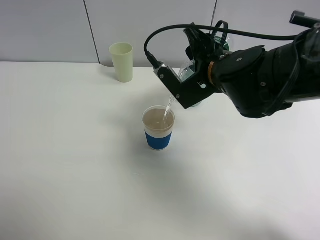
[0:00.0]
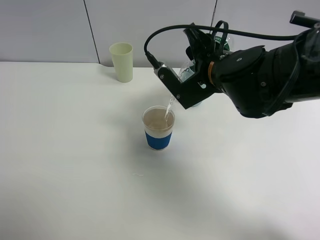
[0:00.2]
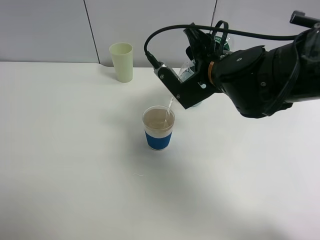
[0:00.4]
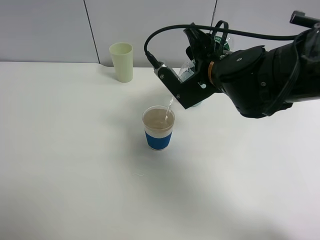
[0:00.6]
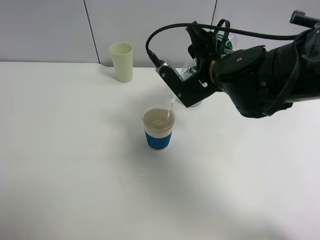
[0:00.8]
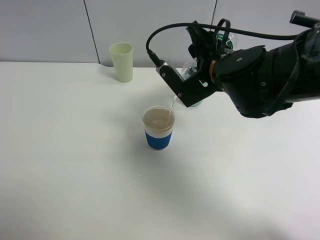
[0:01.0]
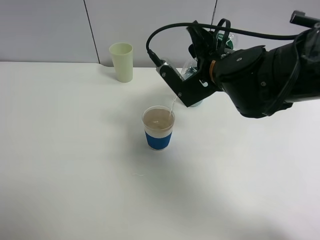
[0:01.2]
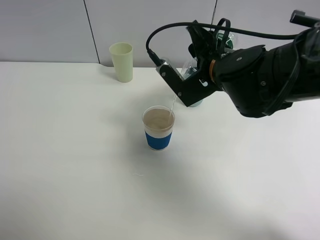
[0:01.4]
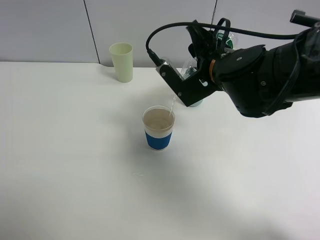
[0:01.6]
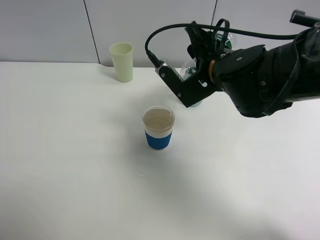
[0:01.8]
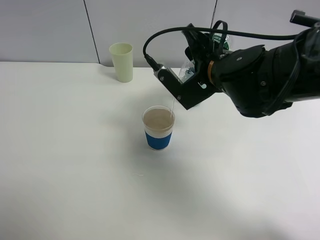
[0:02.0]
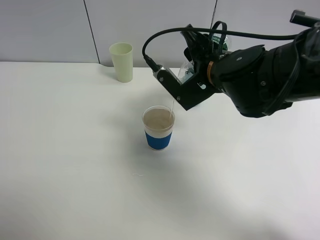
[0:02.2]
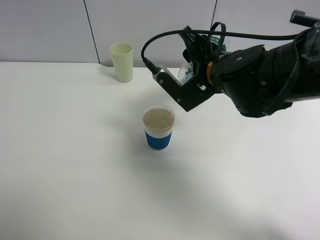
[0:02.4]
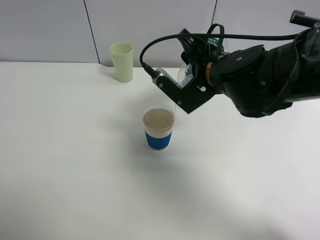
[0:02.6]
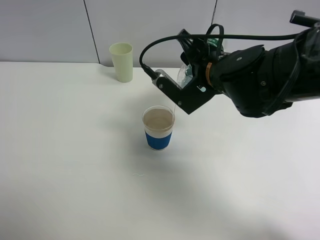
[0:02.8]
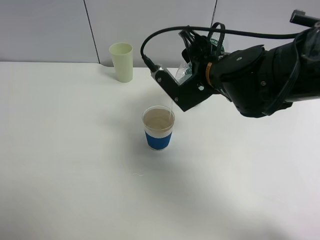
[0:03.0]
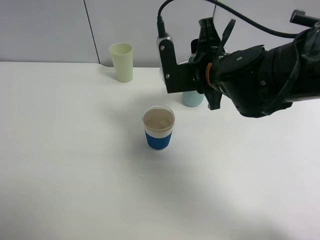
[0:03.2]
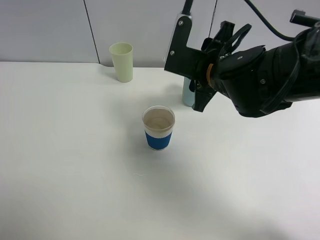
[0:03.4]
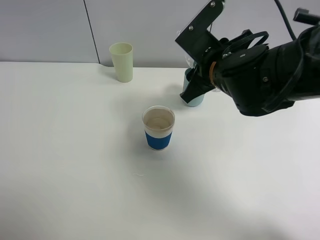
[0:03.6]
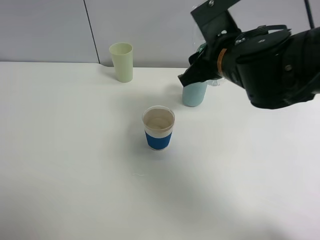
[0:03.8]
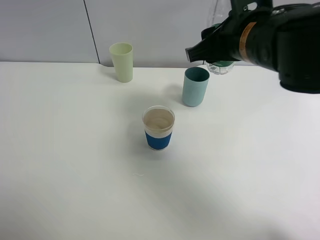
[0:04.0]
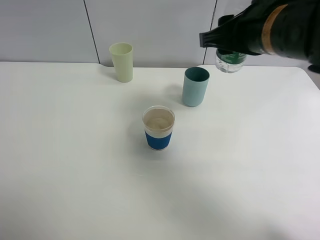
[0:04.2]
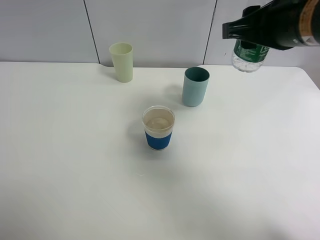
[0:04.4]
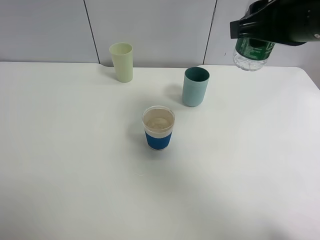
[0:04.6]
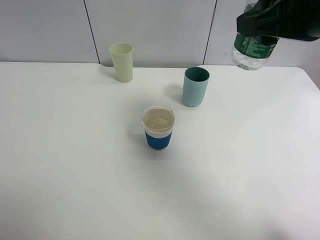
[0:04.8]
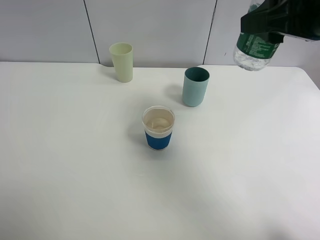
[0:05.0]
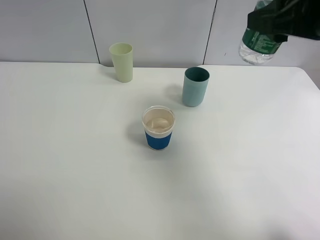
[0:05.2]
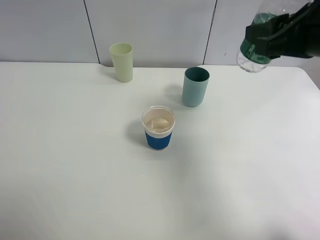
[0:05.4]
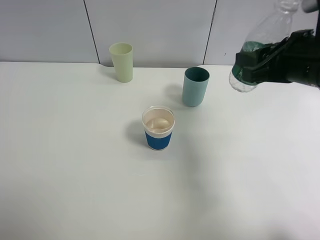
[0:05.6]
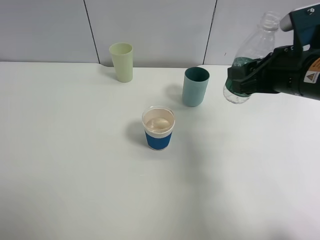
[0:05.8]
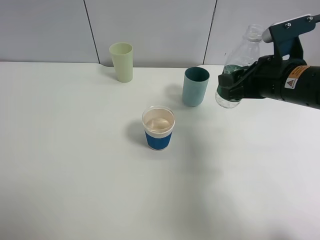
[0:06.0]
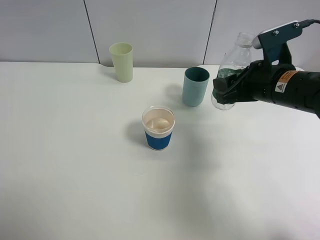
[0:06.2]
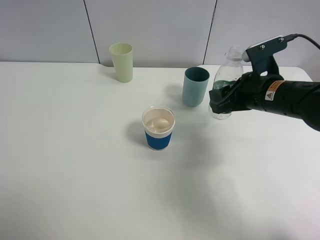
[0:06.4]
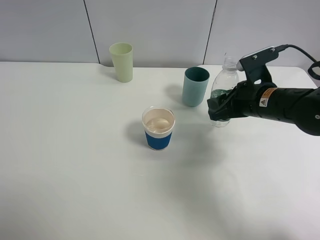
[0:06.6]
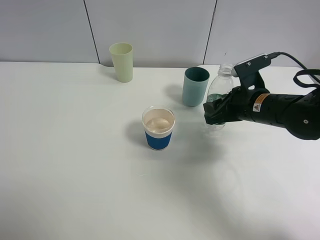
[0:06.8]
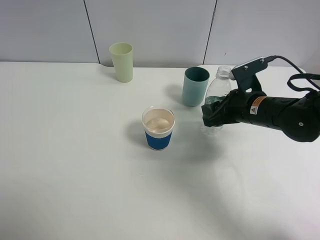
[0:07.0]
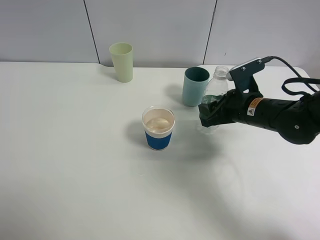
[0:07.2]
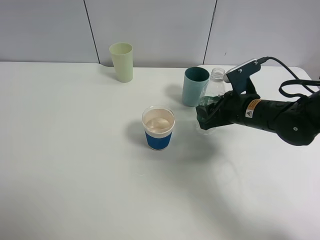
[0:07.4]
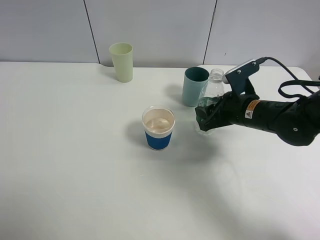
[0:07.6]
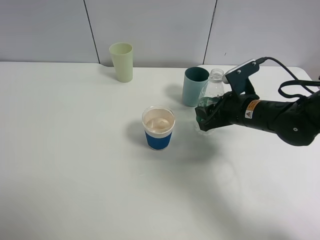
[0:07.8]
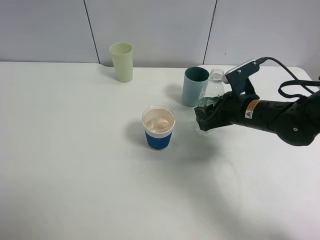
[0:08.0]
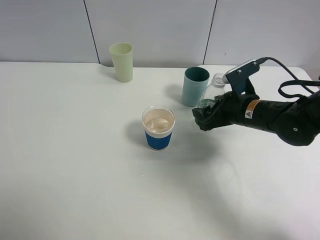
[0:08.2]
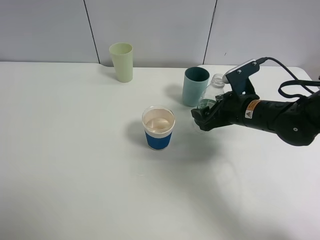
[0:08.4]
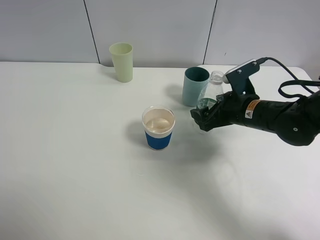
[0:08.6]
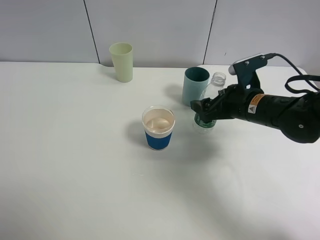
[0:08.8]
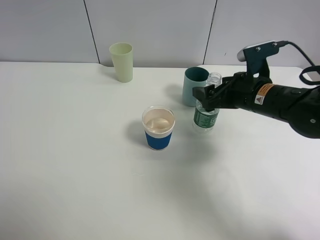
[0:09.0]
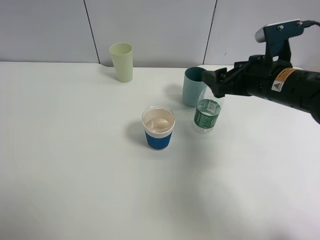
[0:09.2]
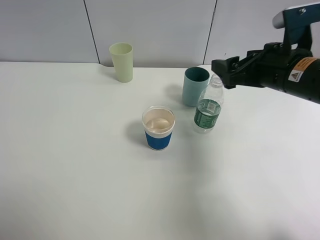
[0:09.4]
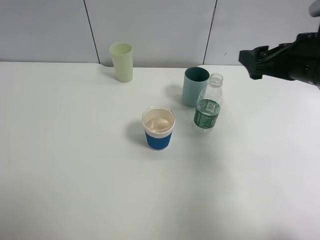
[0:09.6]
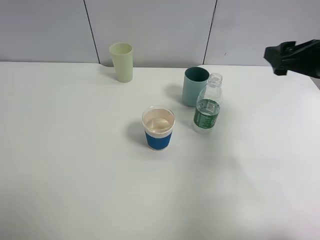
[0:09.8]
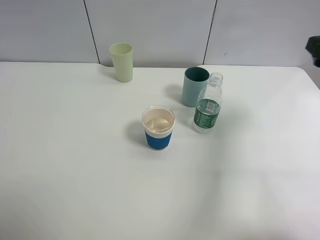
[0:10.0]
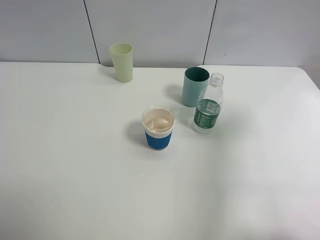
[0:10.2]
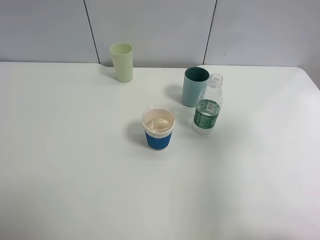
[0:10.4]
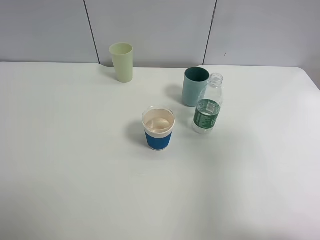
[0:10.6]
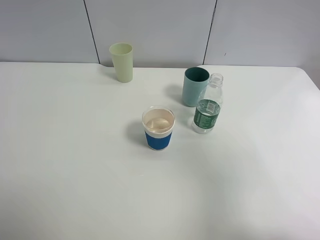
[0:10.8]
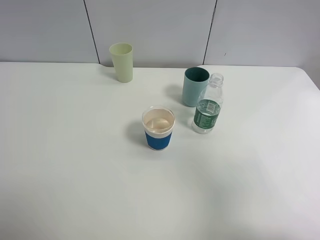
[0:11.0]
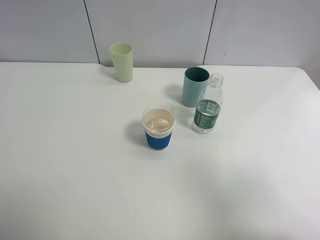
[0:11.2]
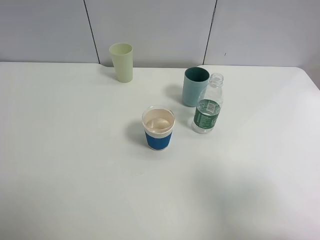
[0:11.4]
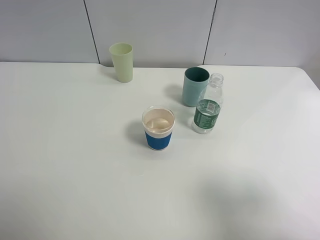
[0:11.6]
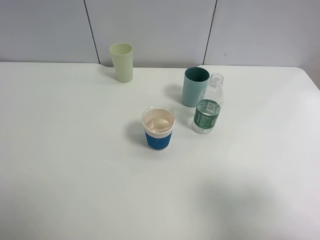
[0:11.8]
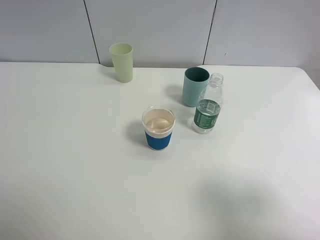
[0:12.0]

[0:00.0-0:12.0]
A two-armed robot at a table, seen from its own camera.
Task of the whole recording: use a clamp to hold the bottle of the drink, pour the beverage into a random cup, then clamp the cup containing the drink and pour the drink into another random cup.
Step, 0:00.0 to 0:03.0: Pour water into the paper cup with right gripper.
Step, 0:03.2 to 0:08.6: Place the water bottle on the table with right gripper.
0:00.0 to 0:01.6: Neither gripper changes place.
0:01.6 to 0:03.0: The grippers move only a little.
0:03.0 to 0:04.4: The right gripper shifts approximately 15 cm upward, to the right and backward.
0:04.4 to 0:06.0: The right gripper shifts some 10 cm downward.
0:06.0 to 0:07.6: The right gripper shifts about 10 cm downward.
0:07.6 to 0:09.0: The right gripper opens its fingers.
0:09.0 to 0:10.4: The right gripper is displaced upward, backward and to the right by roughly 25 cm.
0:10.4 to 0:12.0: The right gripper travels backward and downward by some 15 cm.

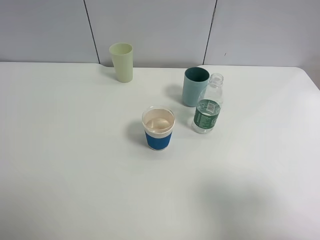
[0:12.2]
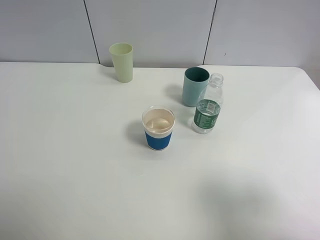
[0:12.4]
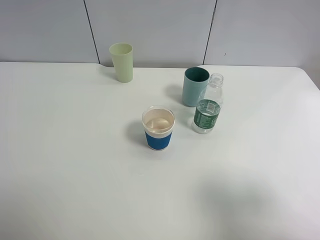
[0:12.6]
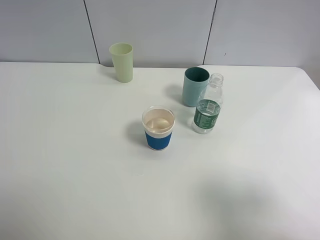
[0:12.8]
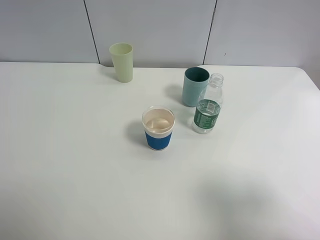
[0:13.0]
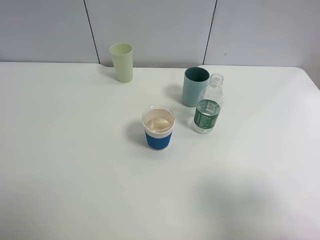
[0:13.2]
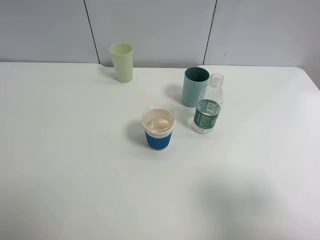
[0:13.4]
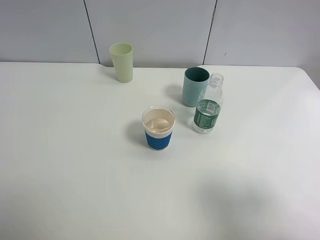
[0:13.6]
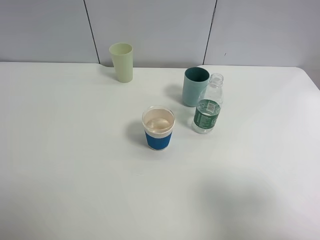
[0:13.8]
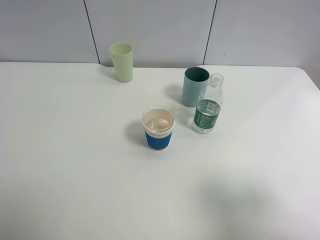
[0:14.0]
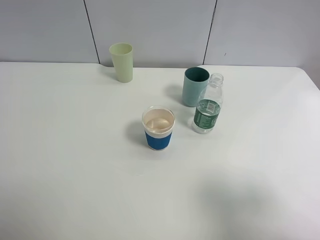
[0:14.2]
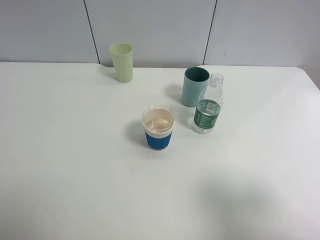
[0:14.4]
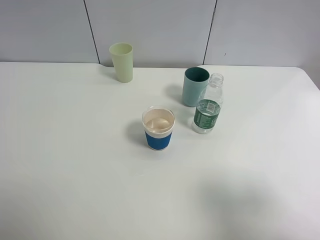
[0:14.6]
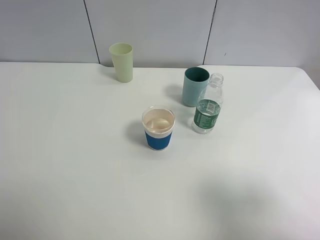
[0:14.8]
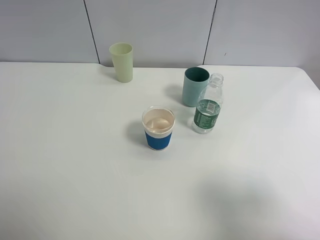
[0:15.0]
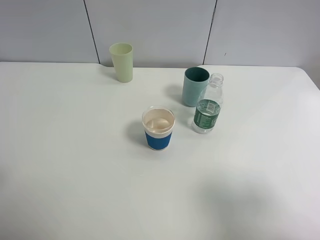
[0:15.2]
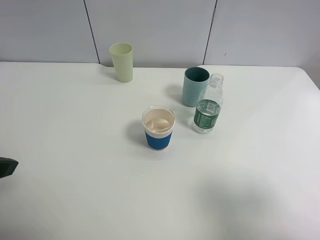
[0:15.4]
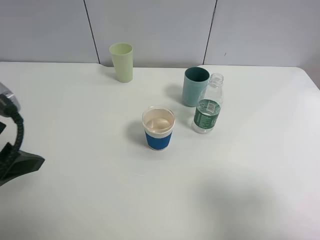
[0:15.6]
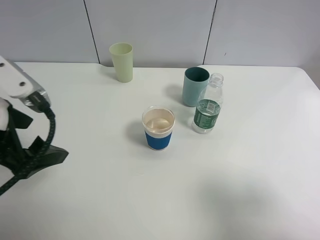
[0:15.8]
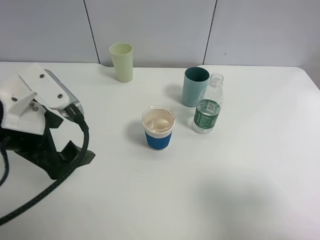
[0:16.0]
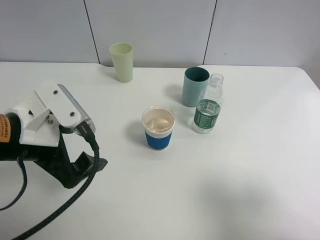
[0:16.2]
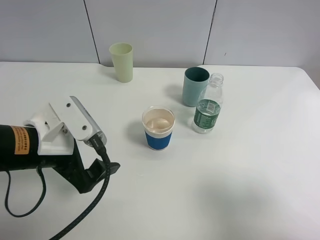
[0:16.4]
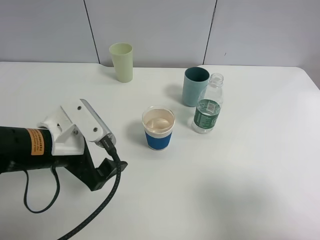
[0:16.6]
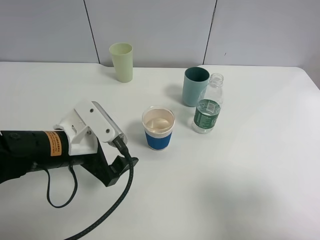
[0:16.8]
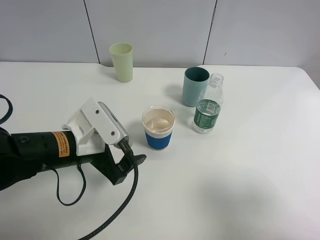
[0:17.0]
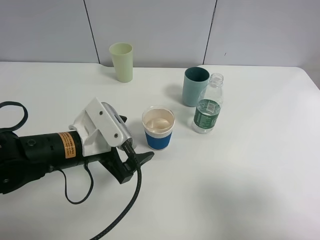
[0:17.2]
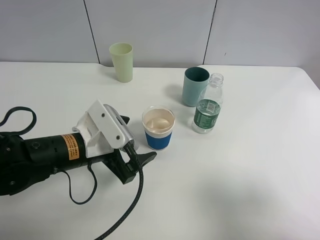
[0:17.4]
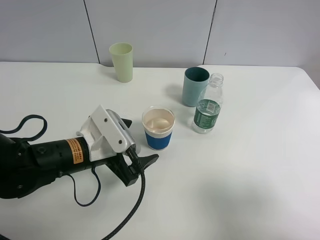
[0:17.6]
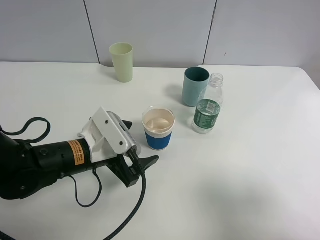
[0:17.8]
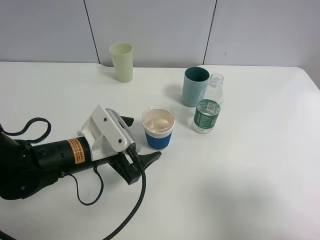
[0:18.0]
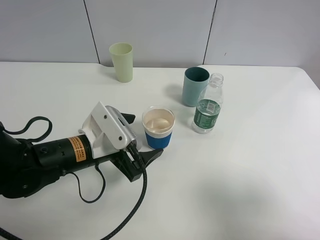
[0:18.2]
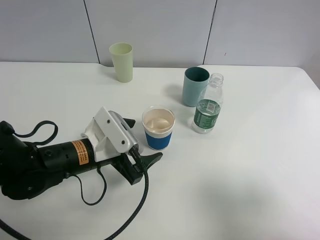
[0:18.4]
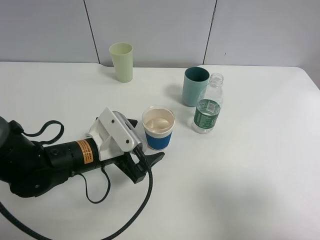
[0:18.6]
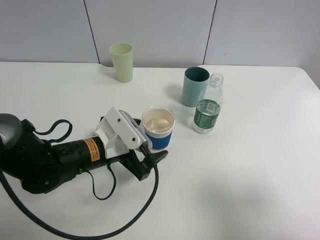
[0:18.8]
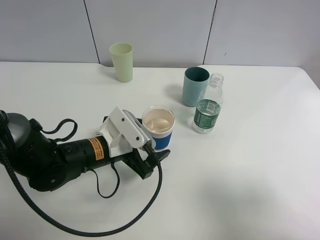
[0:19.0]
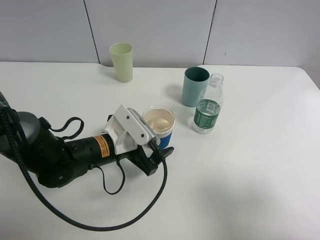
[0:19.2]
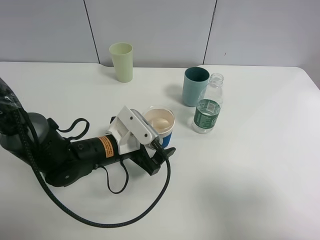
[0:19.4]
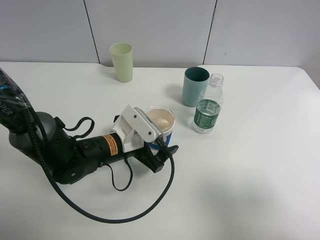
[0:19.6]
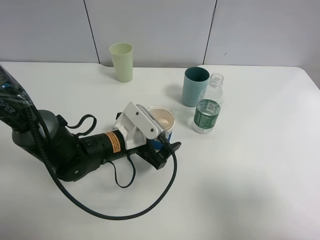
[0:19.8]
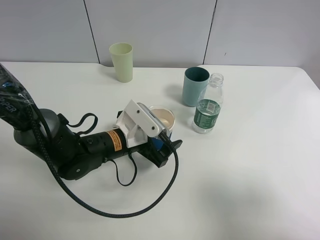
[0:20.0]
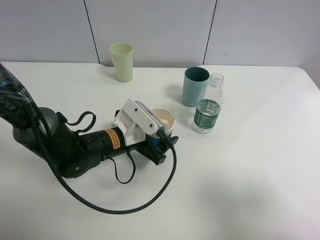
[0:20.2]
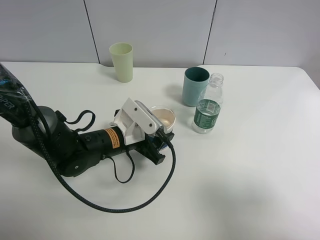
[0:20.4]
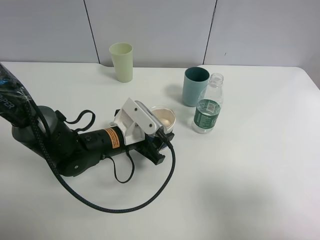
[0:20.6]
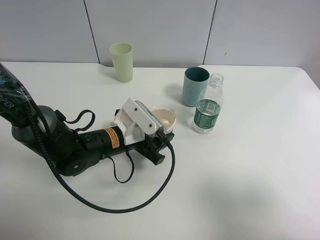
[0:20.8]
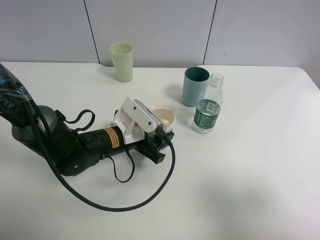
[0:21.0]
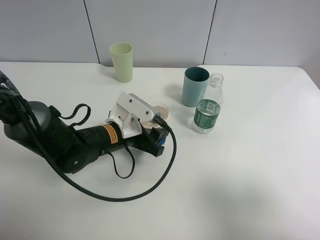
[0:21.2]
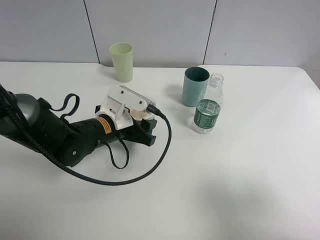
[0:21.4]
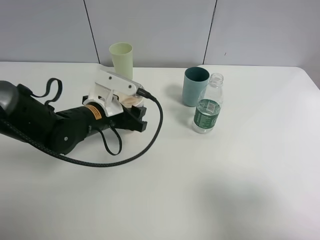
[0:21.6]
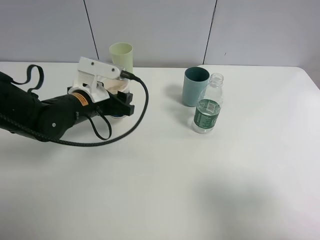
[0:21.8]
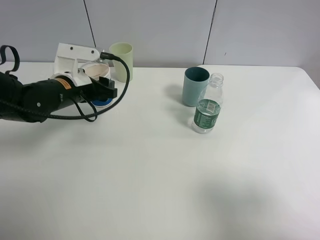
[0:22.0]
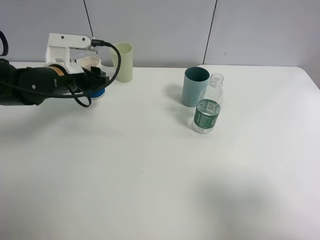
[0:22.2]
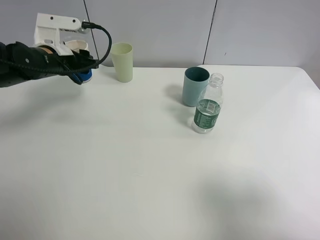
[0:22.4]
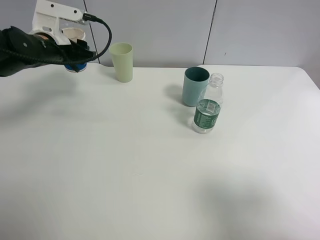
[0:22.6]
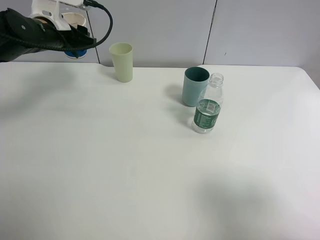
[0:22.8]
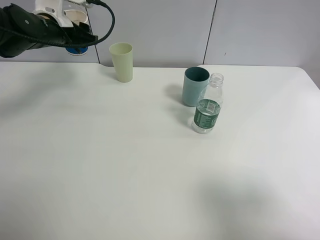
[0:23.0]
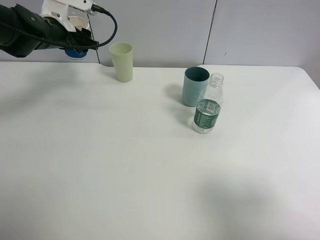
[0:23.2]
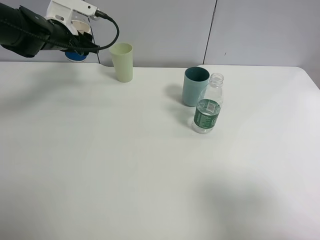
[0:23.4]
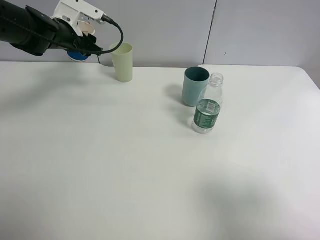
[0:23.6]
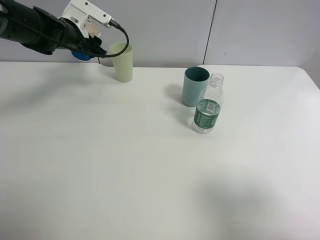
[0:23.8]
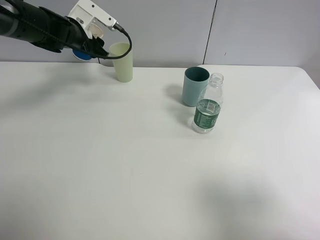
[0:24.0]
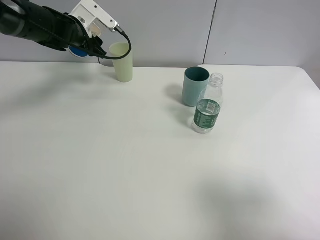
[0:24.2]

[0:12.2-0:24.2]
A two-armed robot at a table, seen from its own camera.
Task of the whole recording: use a clamp to hold the bottle of the drink, pour the beverage into a random cup, then clamp the cup containing the drink and pour the drink into another random cup.
Step, 0:12.2 to 0:21.4: Pick up the paper cup with left gripper.
0:12.2 to 0:13.8: Both grippers stay about where they are.
0:15.2 to 0:16.6: The left gripper is displaced to the right, downward and forward by about 20 cm.
0:16.6 to 0:18.2: The left gripper shifts by about 5 cm.
0:18.2 to 0:19.8: The left gripper changes place by some 5 cm.
0:19.8 to 0:21.2: The left gripper closes.
0:21.2 to 0:22.6: The left gripper goes about 25 cm to the left, forward and upward.
0:22.6 to 0:24.2: The left gripper is displaced forward by approximately 10 cm.
